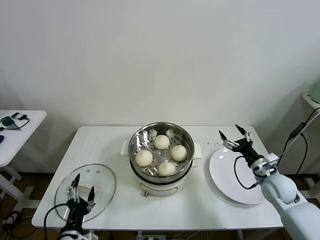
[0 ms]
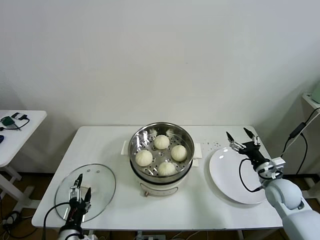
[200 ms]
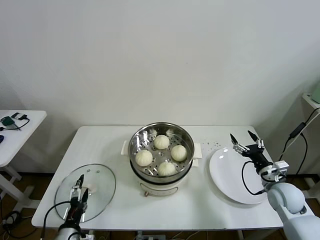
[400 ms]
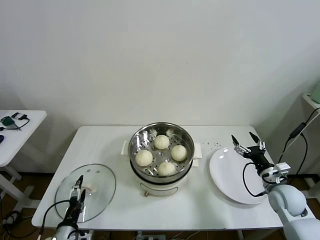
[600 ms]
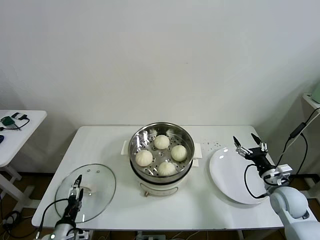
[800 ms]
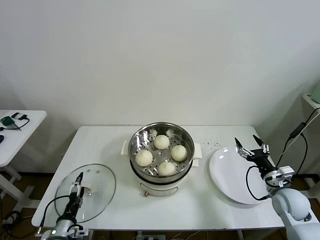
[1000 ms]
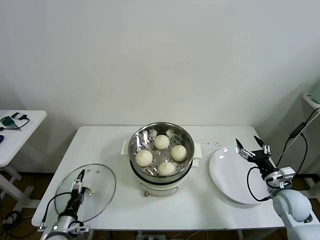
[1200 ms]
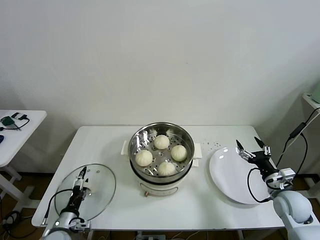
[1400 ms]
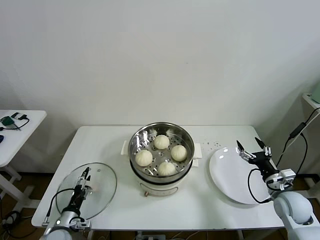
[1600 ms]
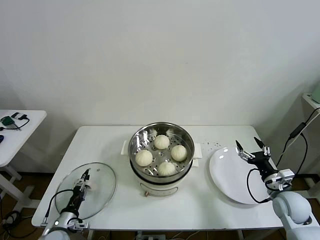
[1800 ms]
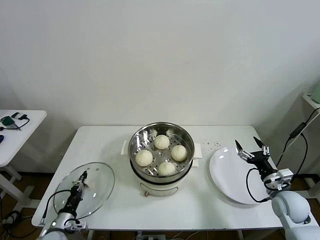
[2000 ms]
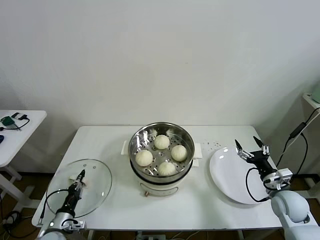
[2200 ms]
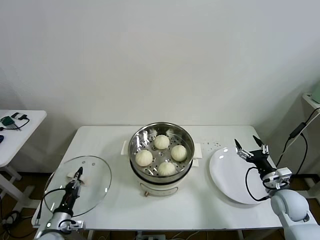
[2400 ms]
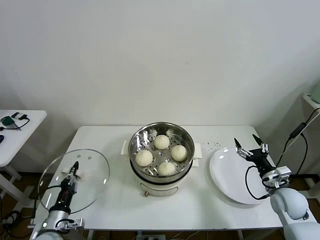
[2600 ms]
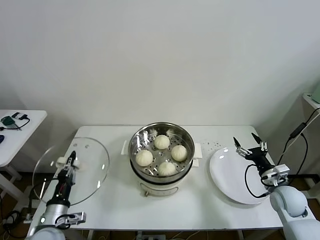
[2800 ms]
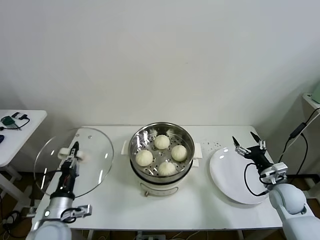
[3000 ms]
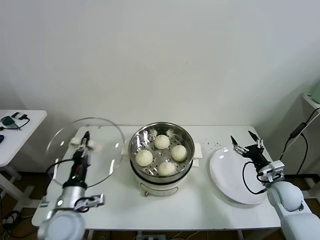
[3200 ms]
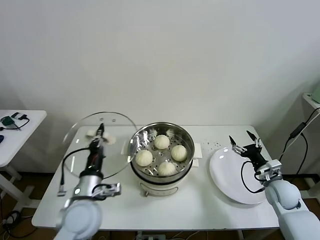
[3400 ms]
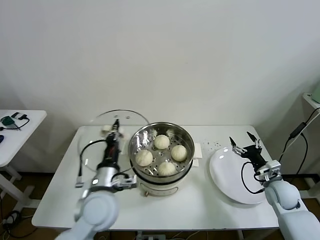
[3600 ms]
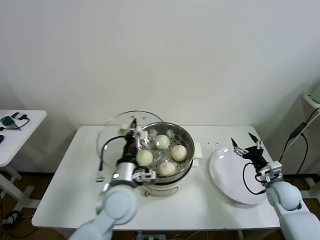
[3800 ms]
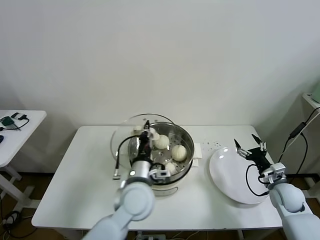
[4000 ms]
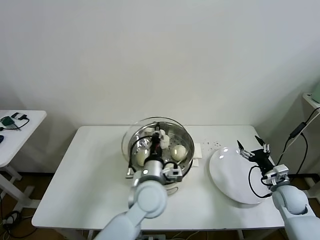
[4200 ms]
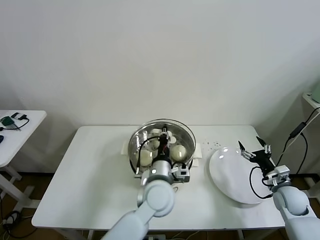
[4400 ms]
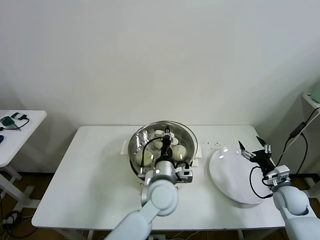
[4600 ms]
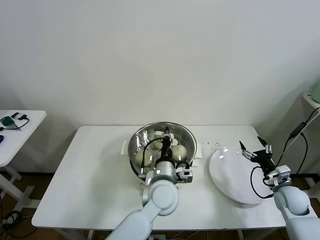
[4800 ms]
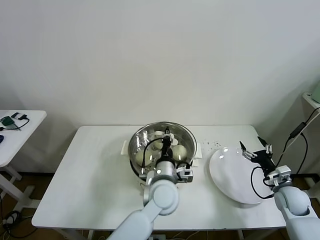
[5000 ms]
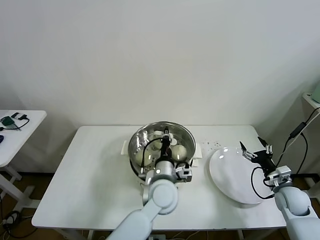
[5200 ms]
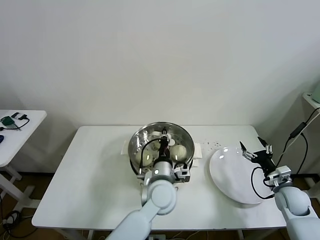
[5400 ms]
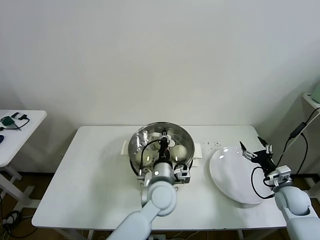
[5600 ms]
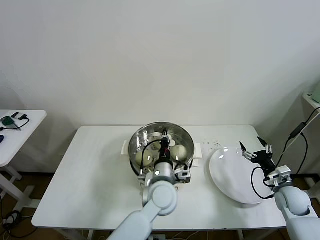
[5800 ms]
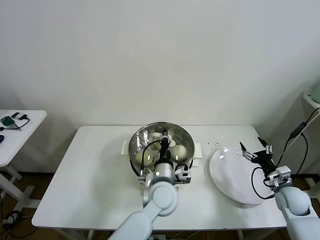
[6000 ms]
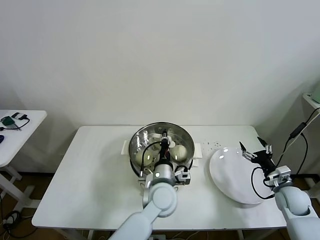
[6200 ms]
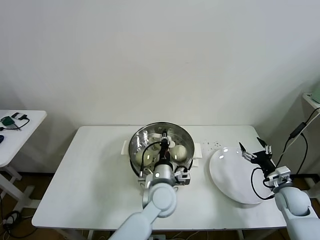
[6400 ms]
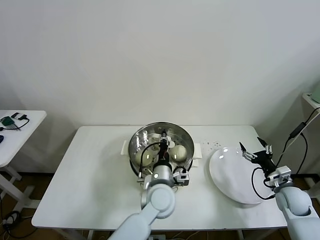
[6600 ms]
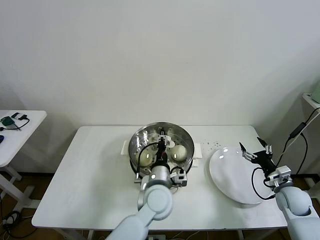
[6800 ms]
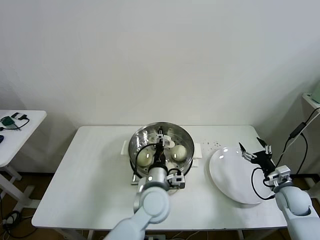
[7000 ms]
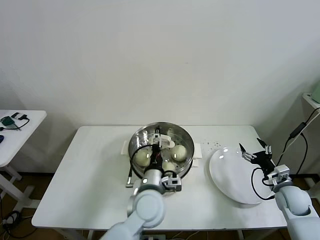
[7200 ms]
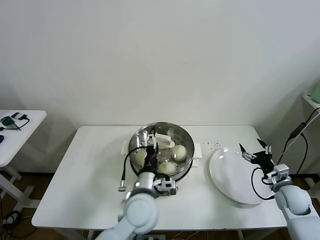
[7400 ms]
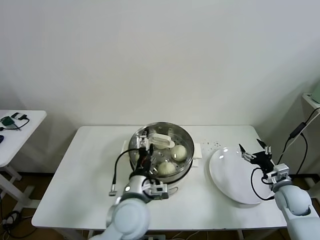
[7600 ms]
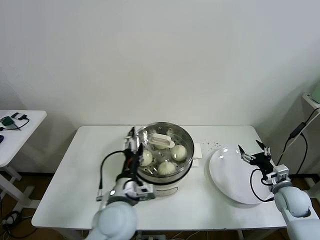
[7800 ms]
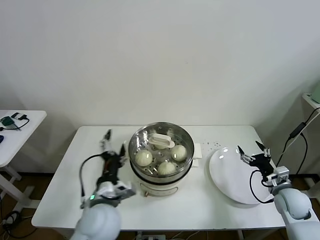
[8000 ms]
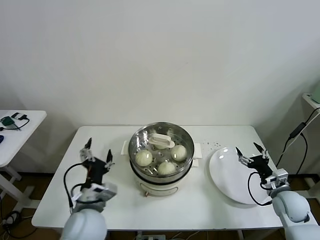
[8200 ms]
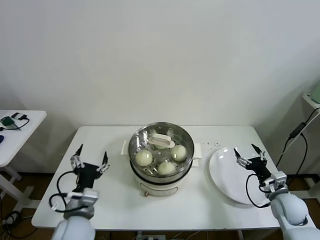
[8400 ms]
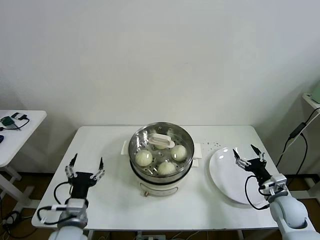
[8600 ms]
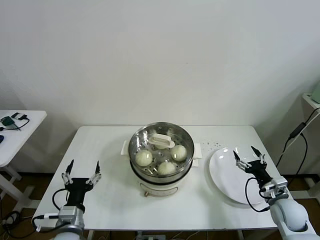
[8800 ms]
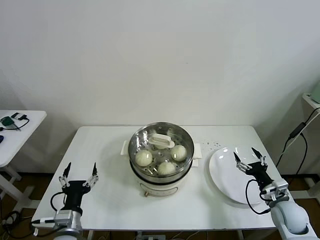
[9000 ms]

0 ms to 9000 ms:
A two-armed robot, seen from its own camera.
Task of the whole recording: take steamed baozi put them in steamer then cover it.
Step, 0 ms to 2000 ms: Grasp the pot lid with left gripper.
Step, 2400 ms to 7000 ms: Place the pot lid on the steamer with left gripper.
0 ms to 1600 ms: The right gripper shifts by roughly 5 cm, while the left gripper heads downward, to the left and forward, covering some 15 cm.
1600 ms to 3000 ms: The left gripper heads upward, covering approximately 15 cm, and closes.
3000 ms to 4400 ms: The left gripper moves to the right, about 30 cm.
4400 ms to 6000 ms: The grippers make only small movements.
6000 ms to 7600 ms: The left gripper travels to the left and backward by approximately 10 cm, and opens up.
7600 ms to 9000 ms: The right gripper shifts by about 5 cm. The left gripper moves to the left and downward, approximately 20 cm.
